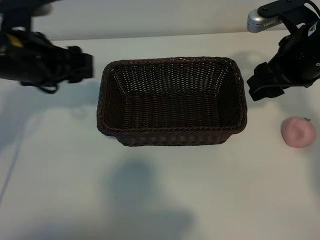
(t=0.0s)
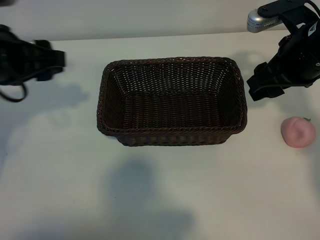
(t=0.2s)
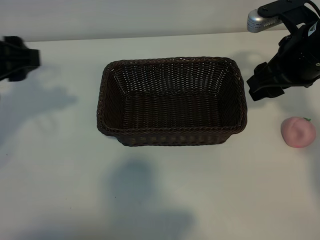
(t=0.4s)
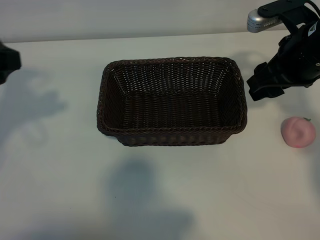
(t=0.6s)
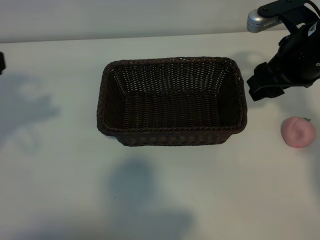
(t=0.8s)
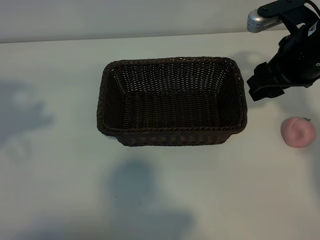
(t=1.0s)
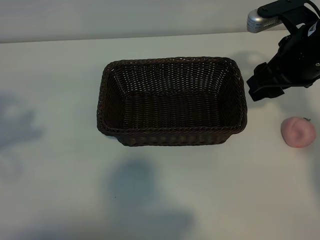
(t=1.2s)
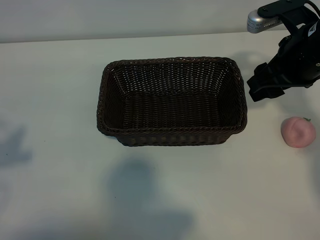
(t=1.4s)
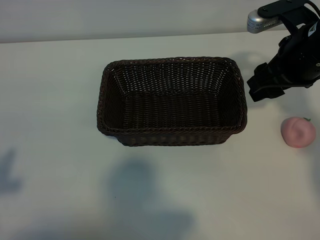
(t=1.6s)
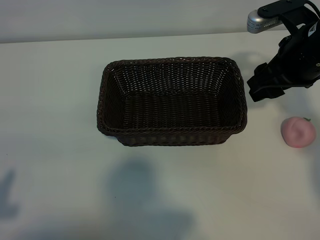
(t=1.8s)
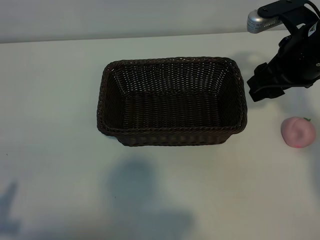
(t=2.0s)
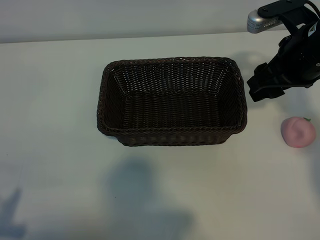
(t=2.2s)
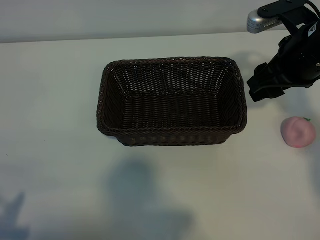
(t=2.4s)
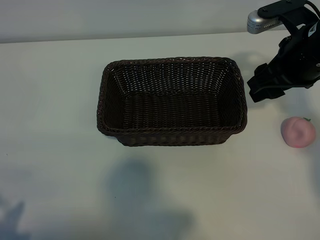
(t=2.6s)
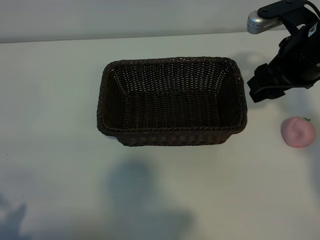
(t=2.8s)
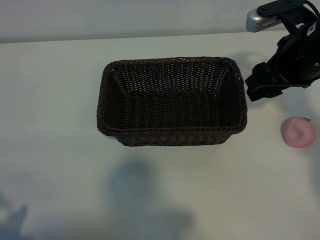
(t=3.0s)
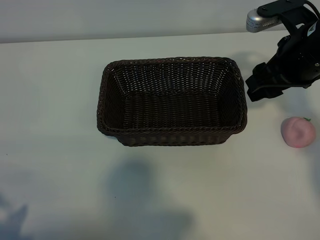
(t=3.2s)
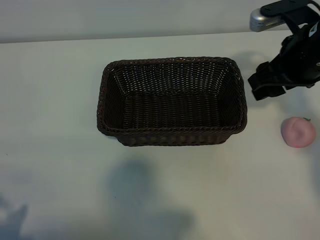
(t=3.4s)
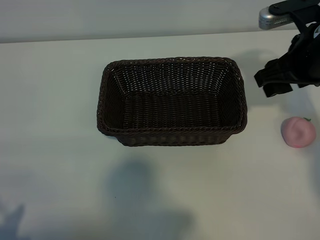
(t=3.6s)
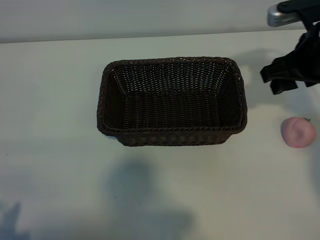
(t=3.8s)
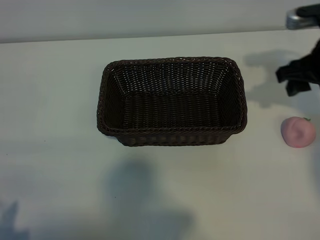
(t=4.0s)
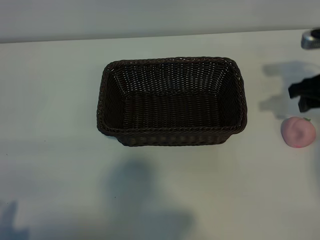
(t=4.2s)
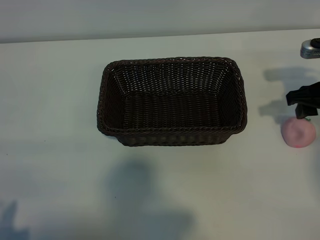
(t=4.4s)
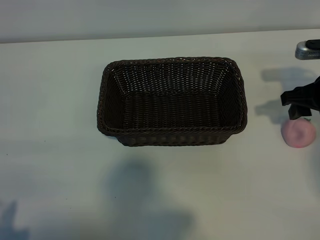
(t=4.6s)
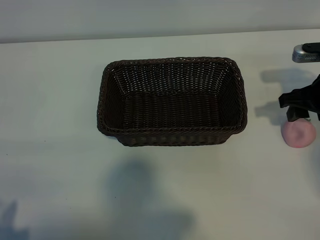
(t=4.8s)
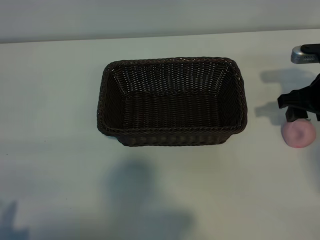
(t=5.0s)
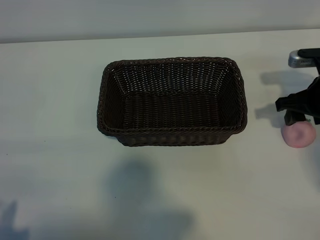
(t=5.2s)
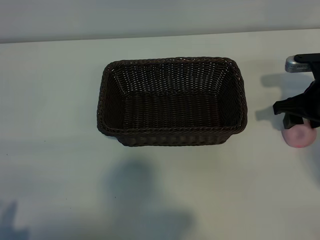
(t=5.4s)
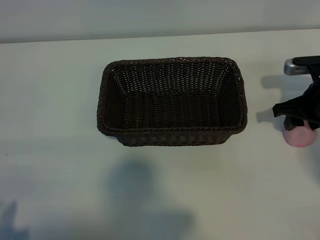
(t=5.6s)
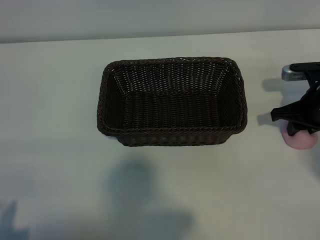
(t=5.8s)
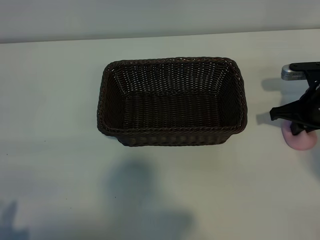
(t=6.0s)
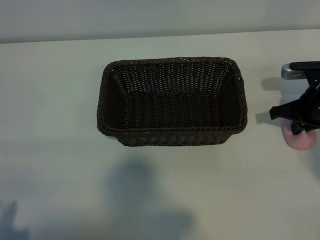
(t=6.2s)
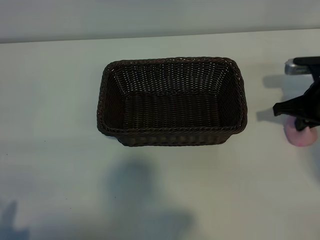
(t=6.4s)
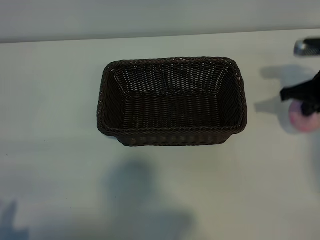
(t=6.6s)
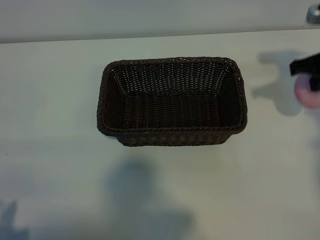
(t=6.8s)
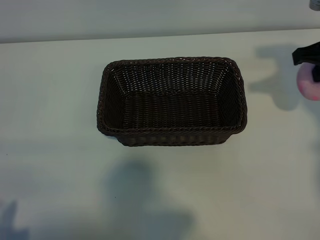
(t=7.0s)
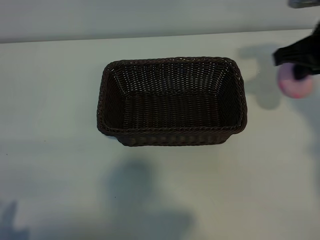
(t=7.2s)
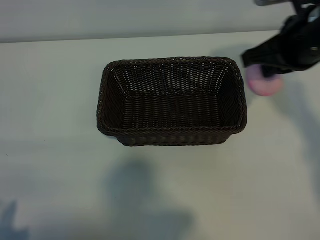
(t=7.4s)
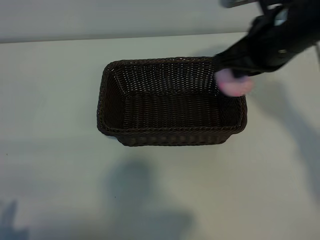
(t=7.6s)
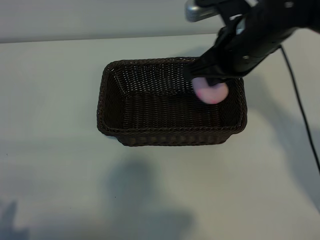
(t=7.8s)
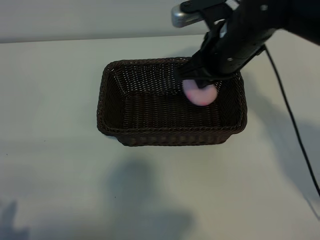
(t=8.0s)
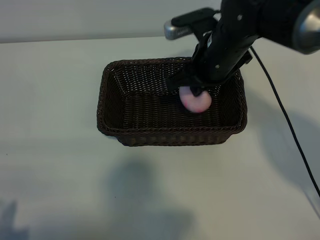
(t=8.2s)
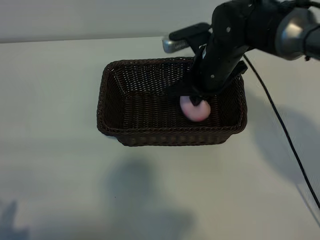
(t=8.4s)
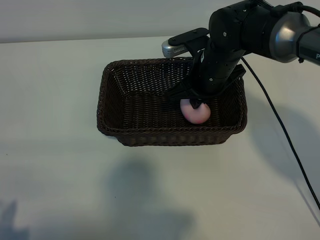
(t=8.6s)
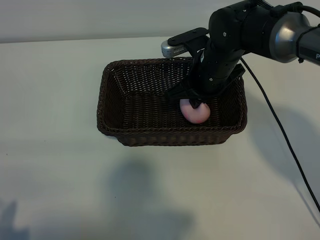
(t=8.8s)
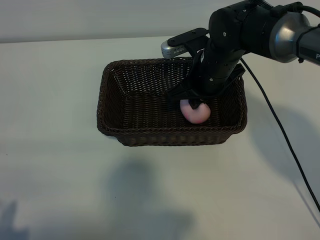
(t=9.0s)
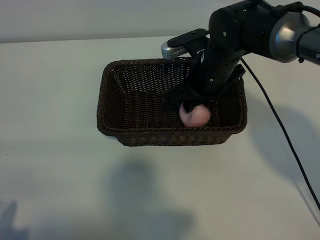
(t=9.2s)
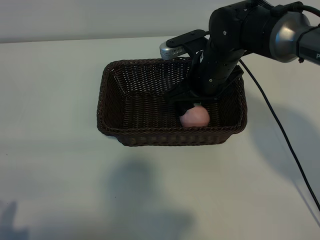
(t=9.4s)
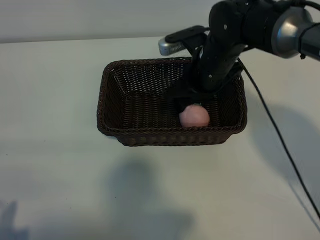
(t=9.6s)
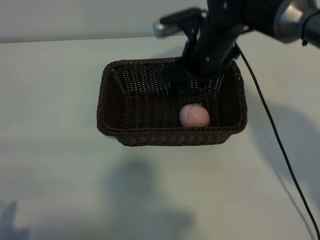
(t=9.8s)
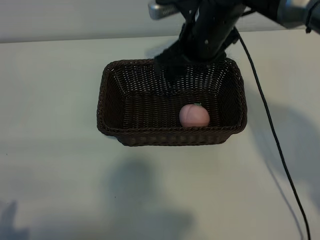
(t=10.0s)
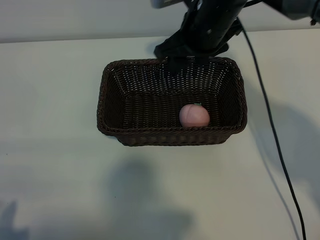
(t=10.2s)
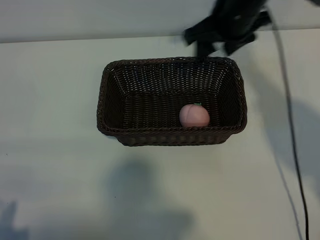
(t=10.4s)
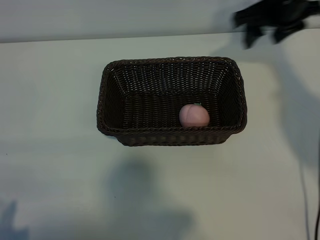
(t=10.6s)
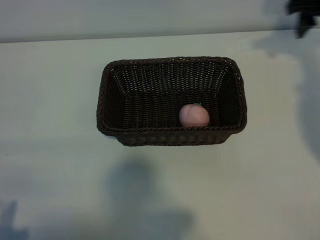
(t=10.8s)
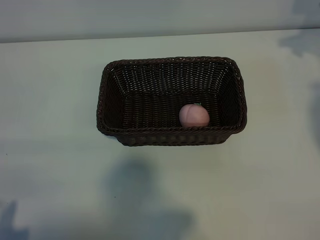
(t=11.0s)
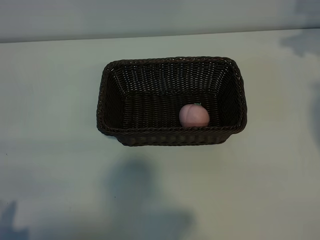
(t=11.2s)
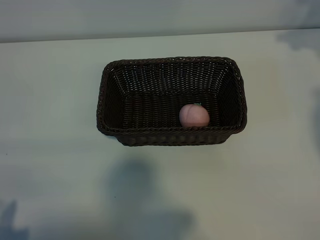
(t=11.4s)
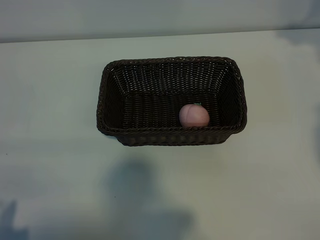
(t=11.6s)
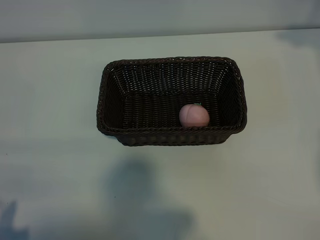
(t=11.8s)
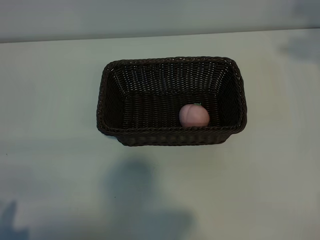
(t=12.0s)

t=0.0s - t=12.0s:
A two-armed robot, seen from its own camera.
Task of the whole recording: pick up the peach and put it into the basket.
Step, t=0.0s - t=6.0s: Grasp the peach with right gripper.
Step, t=6.2s - t=9.4s: Place the peach in the basket with right gripper.
